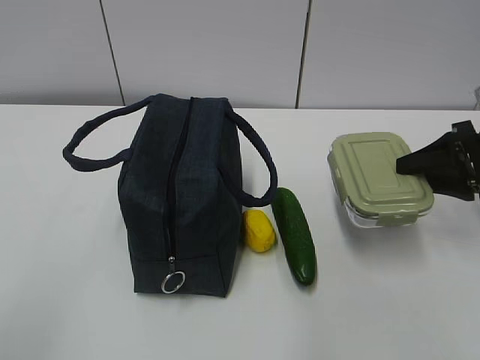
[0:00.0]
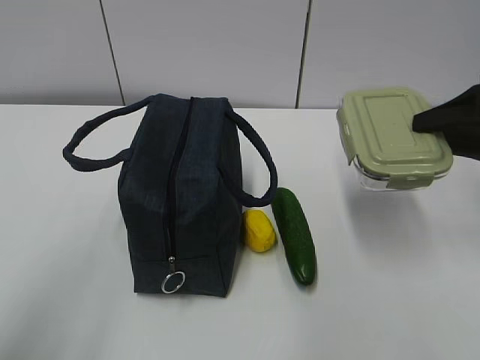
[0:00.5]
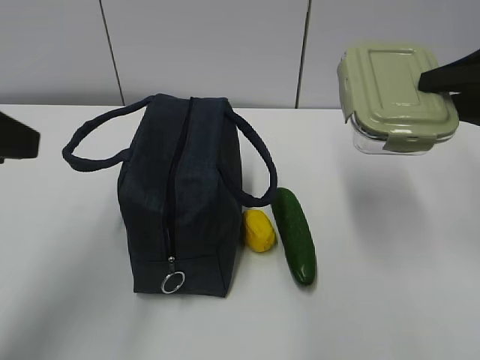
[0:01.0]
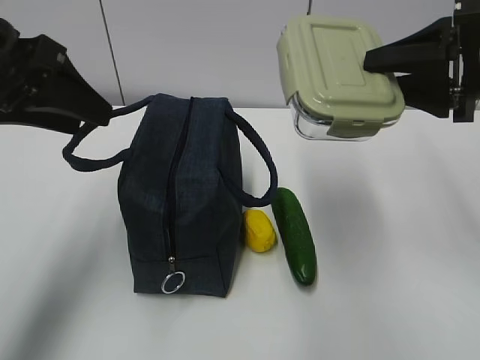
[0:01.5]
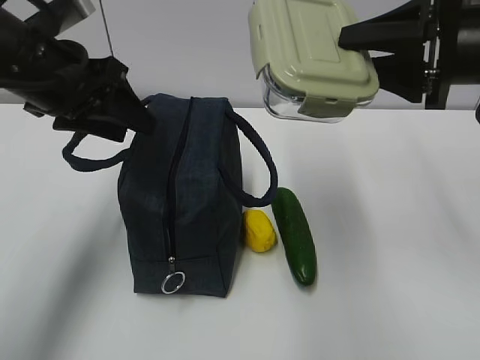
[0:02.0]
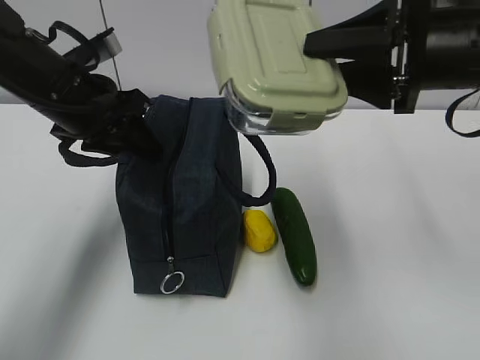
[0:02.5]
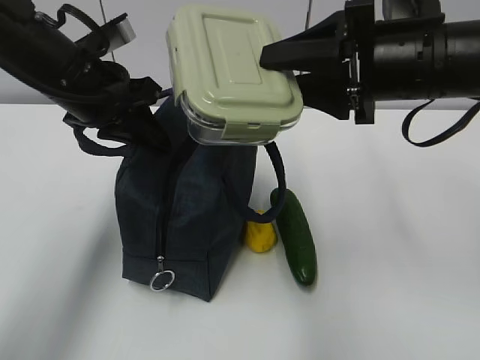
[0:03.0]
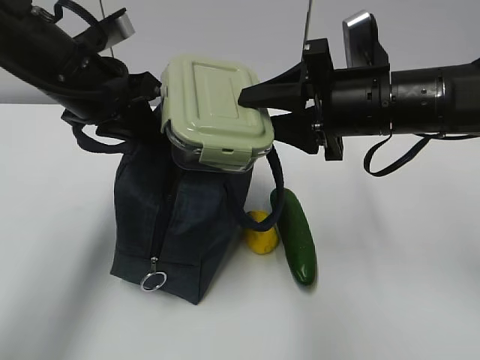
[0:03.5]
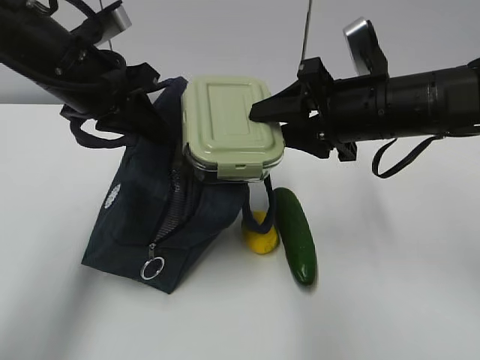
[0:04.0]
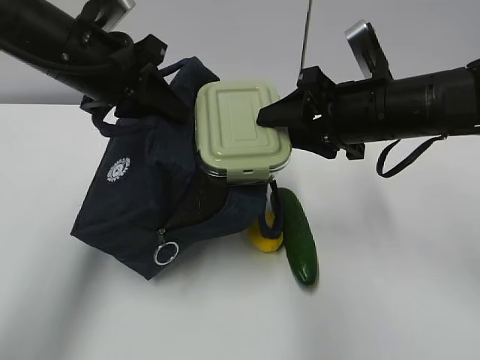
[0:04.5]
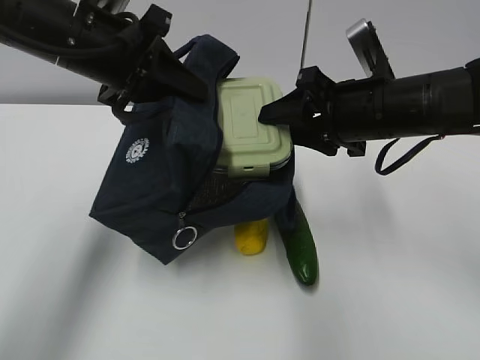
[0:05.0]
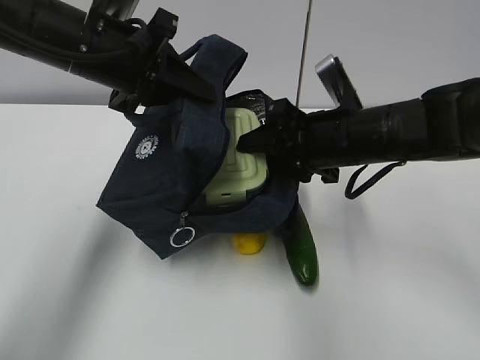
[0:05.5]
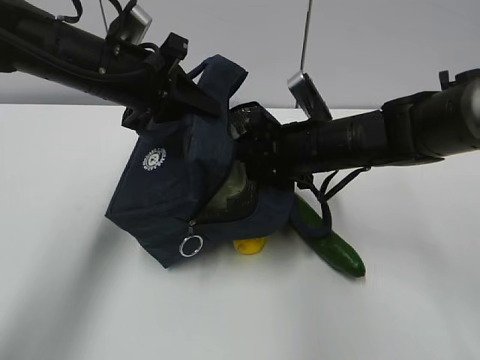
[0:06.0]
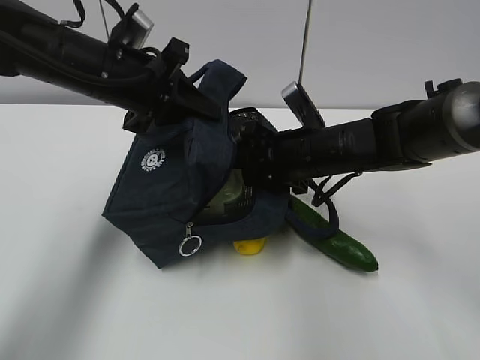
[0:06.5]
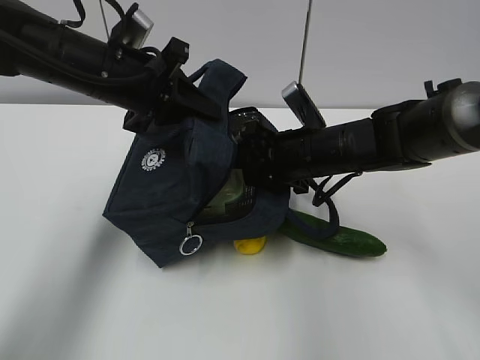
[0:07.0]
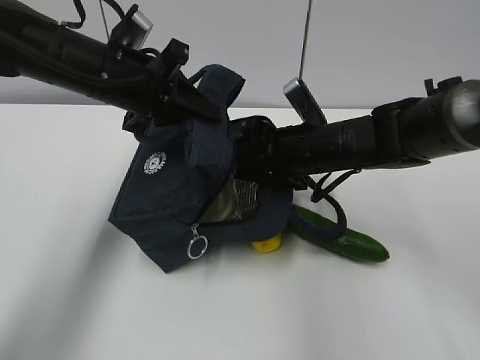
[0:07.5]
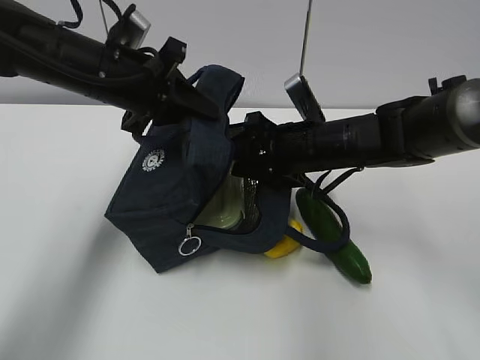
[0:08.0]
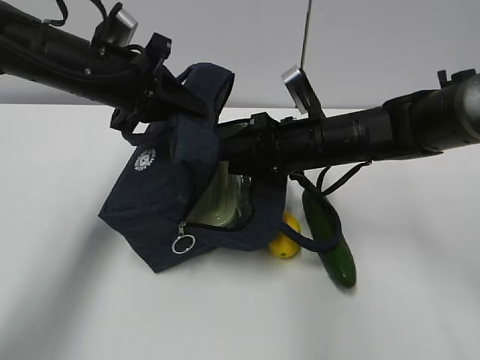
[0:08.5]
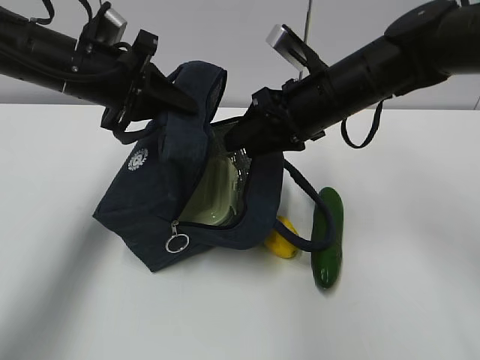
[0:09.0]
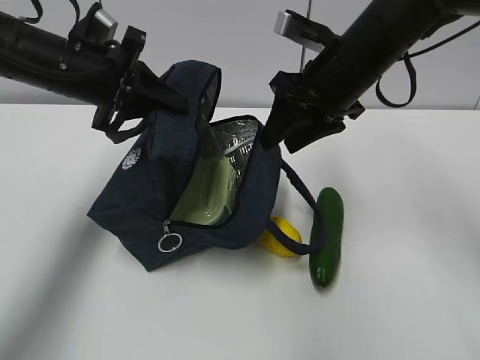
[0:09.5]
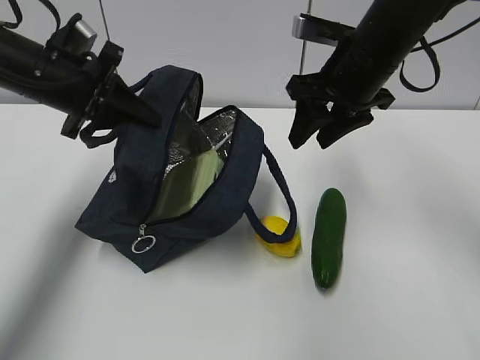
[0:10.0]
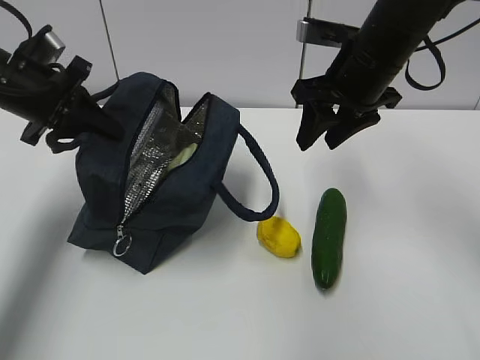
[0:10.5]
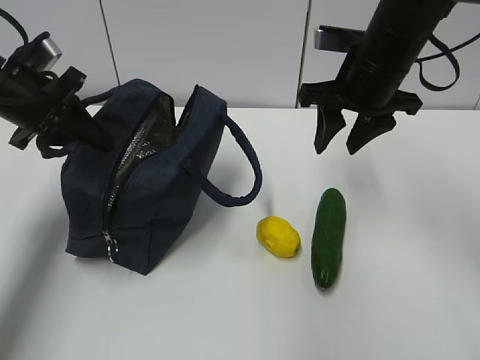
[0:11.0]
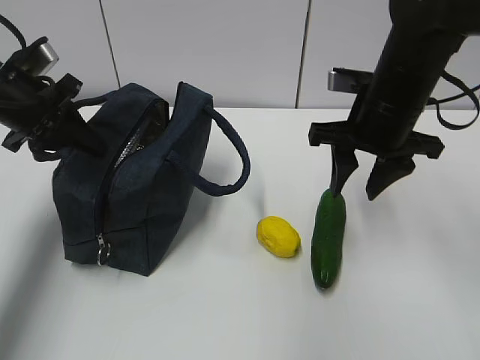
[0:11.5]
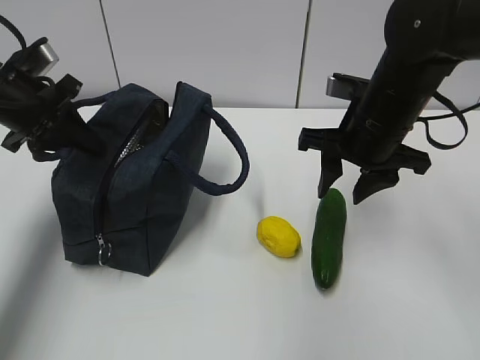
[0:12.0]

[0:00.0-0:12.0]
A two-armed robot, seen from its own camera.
Step, 0:01.5 to 0:07.0: Grab the cucumber with your right hand.
Step, 0:07.5 to 0:09.5: Place it into the bag with your right hand.
0:00.0 to 0:02.0: The right gripper shifts approximately 15 cm upward and to the left. The left gripper travels forward by some 30 cm, and opens up.
0:02.0 to 0:04.0: The left gripper closes up, while the right gripper moves to the left and downward, some 10 cm.
0:04.0 to 0:06.0: The right gripper shifts about 5 cm downward.
0:06.0 to 0:08.0: The grippers move only a little.
0:08.0 to 0:10.0: The right gripper moves upward, roughly 10 cm. Meanwhile the left gripper moves to the left, approximately 5 cm.
0:10.0 to 0:12.0: The right gripper ends up about 5 cm from where it was.

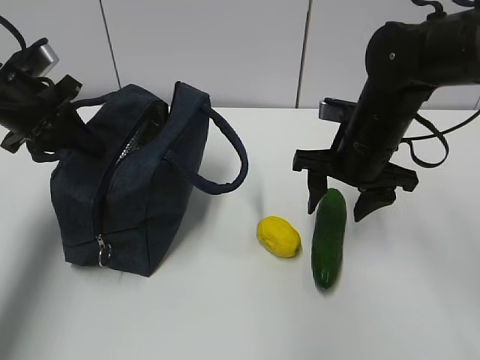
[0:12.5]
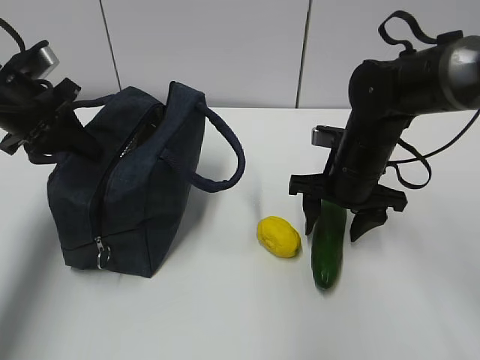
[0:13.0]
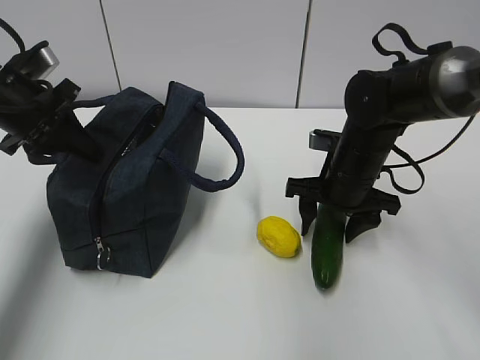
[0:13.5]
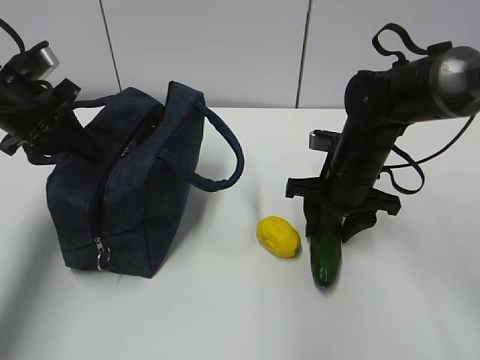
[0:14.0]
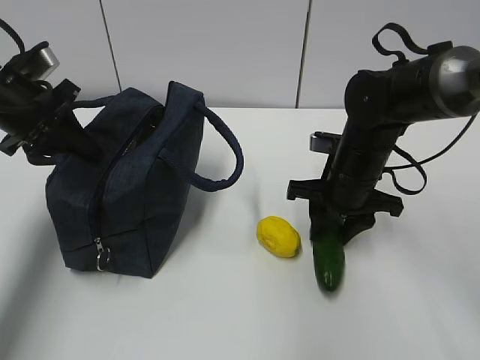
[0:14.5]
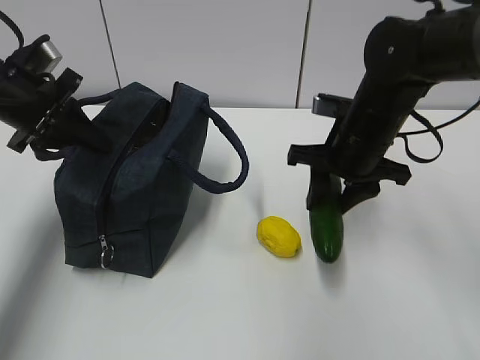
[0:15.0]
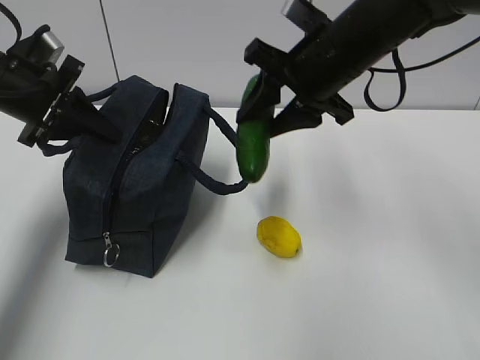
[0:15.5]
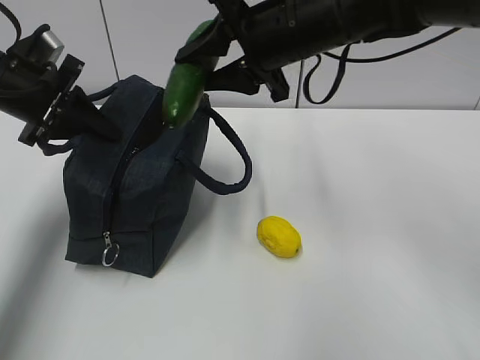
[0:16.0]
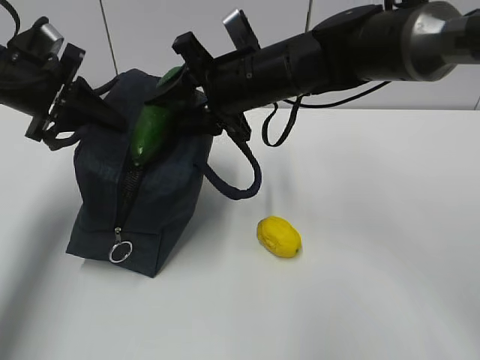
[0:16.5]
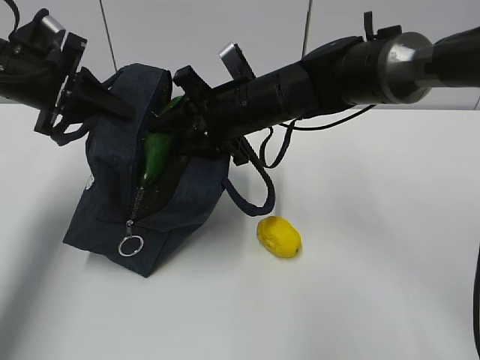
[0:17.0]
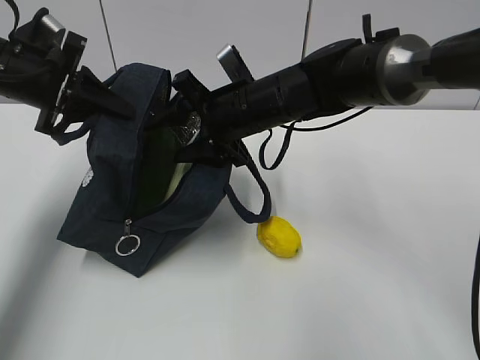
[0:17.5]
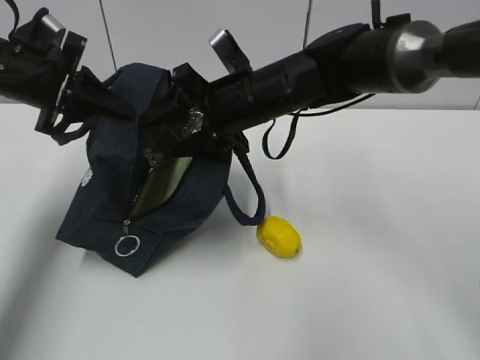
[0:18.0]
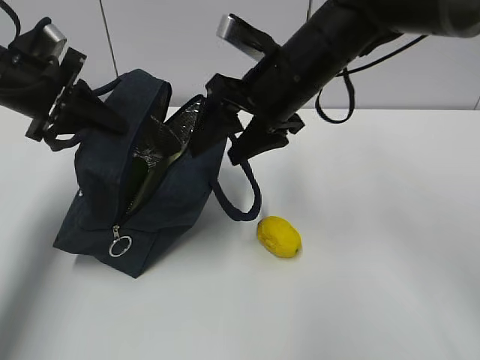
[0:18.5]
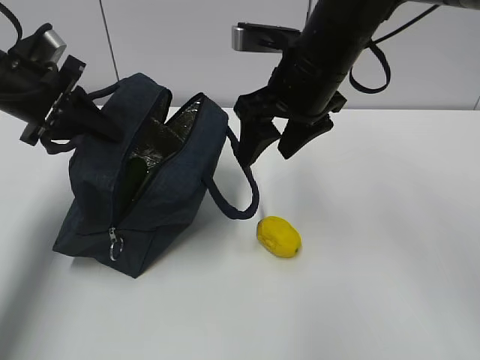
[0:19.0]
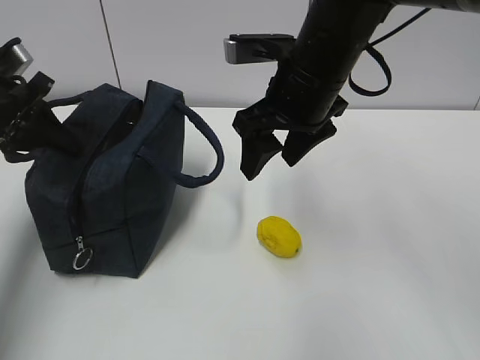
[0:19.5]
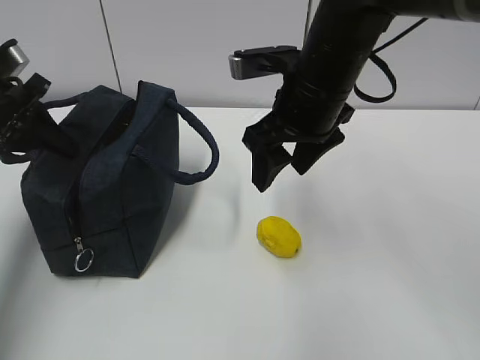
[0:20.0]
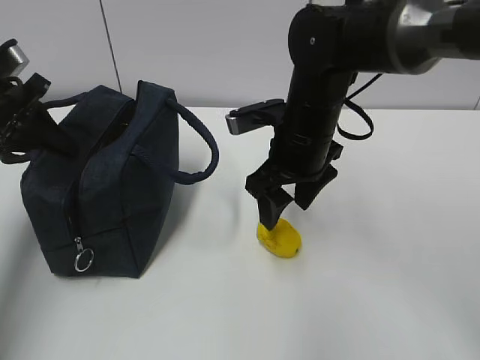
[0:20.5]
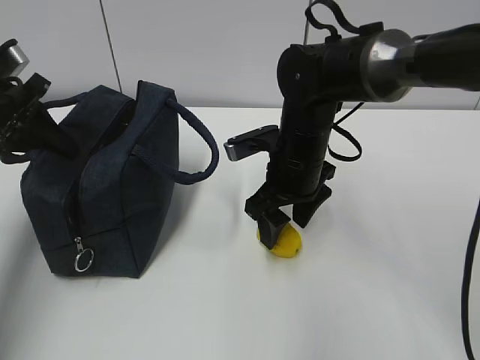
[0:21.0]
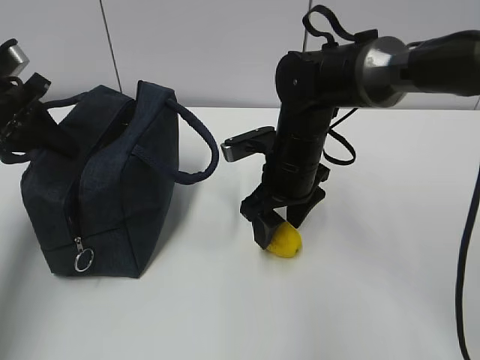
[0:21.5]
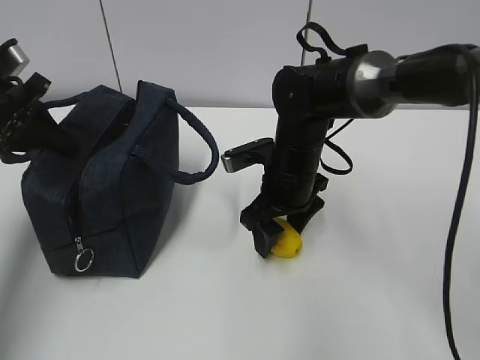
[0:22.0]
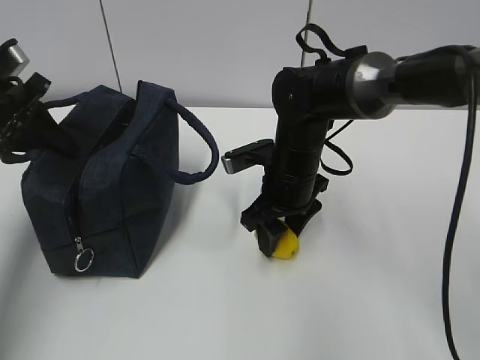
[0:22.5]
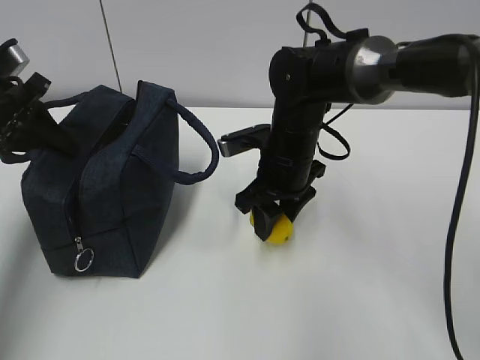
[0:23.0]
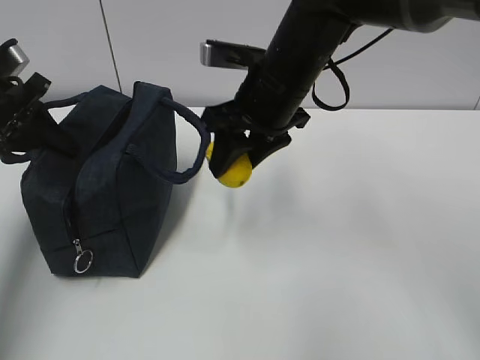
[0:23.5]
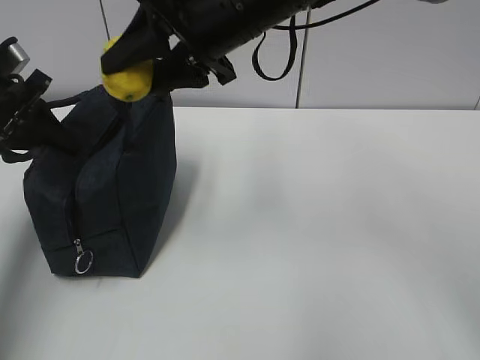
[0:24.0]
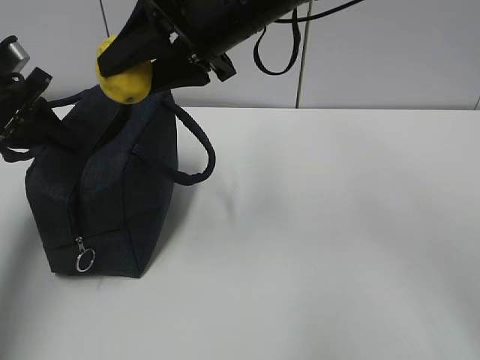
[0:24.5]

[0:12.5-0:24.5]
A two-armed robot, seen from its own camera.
Step, 0:18.0 to 0:19.5: Grab the lunch bag with your right hand.
Step, 0:20.0 to 0:22.5: Move the lunch bag to the right.
0:12.5 to 0:14.5: The right gripper travels downward by about 5 cm.
0:14.5 to 0:16.5: The right gripper goes approximately 15 cm to the left and upward.
0:16.5 to 0:18.5: The right gripper ends up roughly 5 cm from where it was.
0:18.5 to 0:20.5: The right gripper travels downward by roughly 5 cm.
0:20.5 to 0:22.5: The right gripper heads downward, covering some 5 cm.
0:22.5 to 0:24.5: The right gripper goes roughly 20 cm upward.

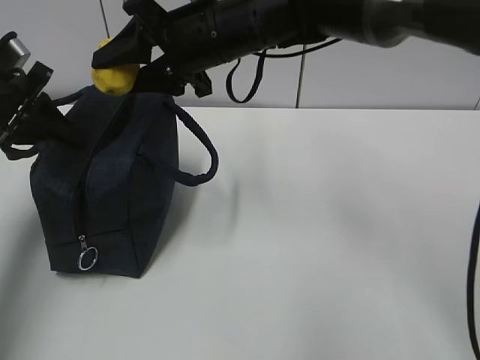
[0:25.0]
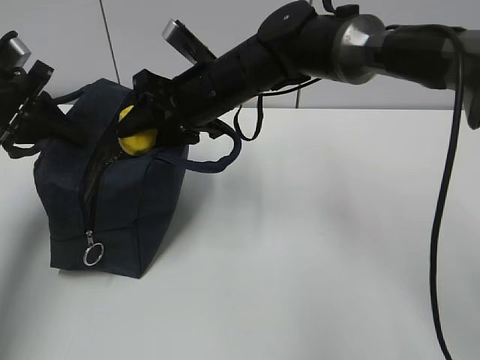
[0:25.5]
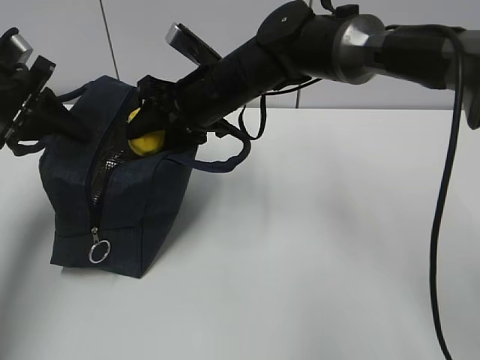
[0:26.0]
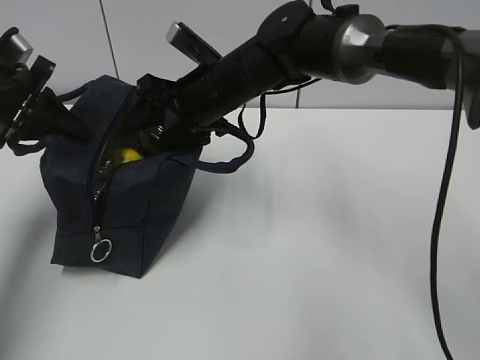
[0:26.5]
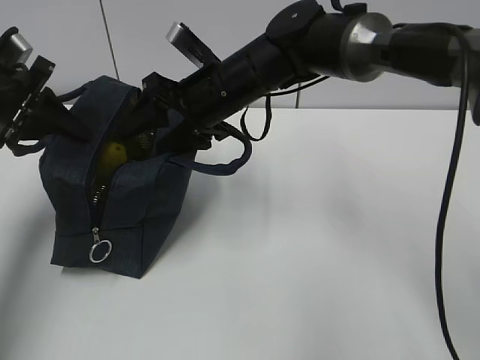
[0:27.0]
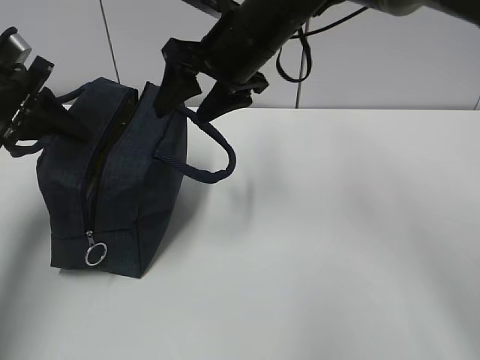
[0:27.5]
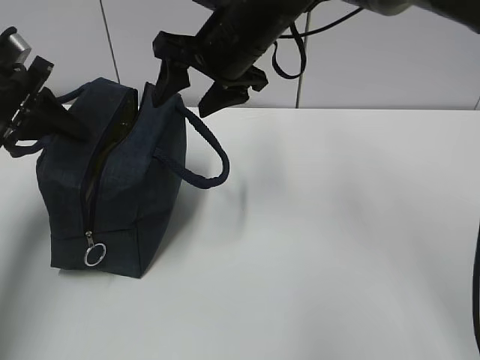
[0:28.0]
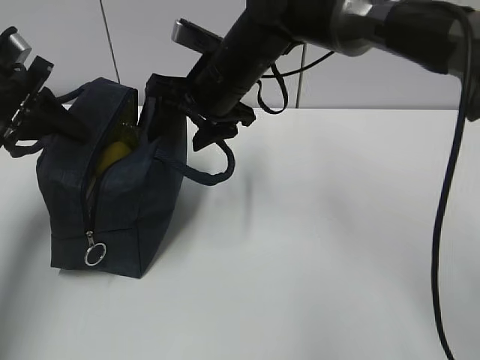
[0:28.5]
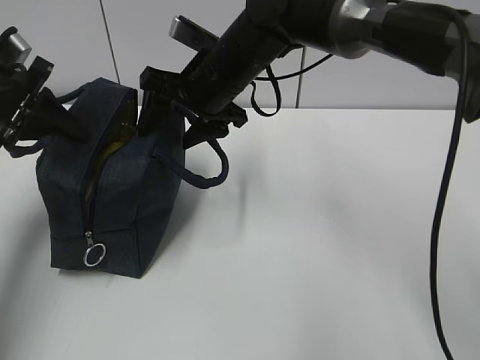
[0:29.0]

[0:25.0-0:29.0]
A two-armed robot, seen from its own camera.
0:25.0 to 0:27.0: The right gripper goes roughly 5 cm downward.
